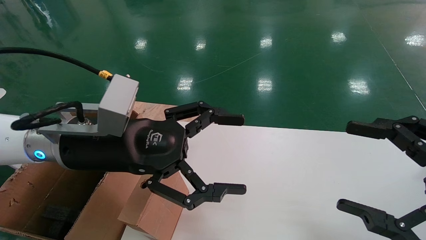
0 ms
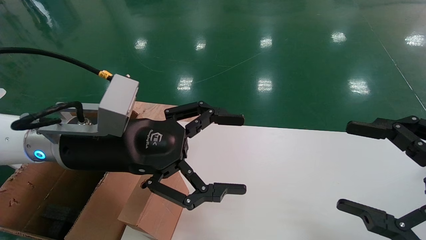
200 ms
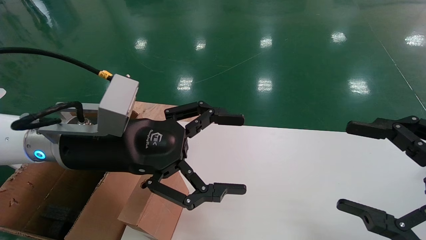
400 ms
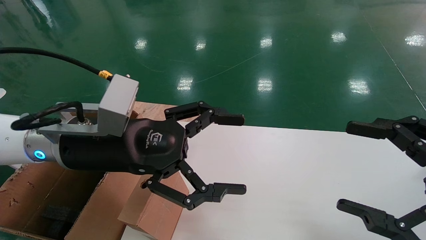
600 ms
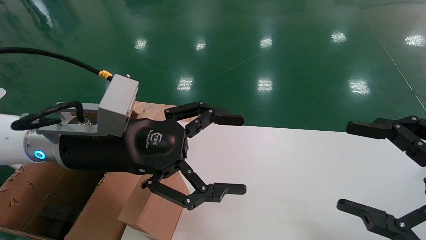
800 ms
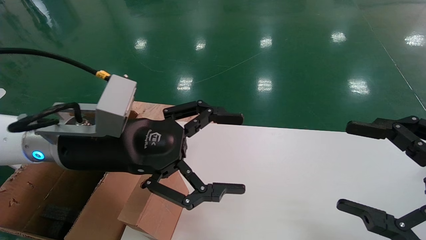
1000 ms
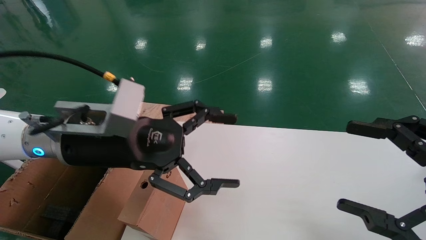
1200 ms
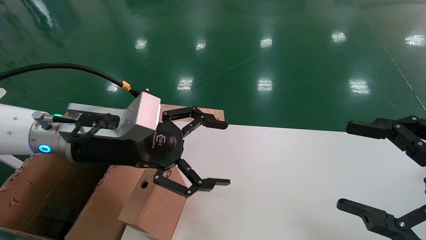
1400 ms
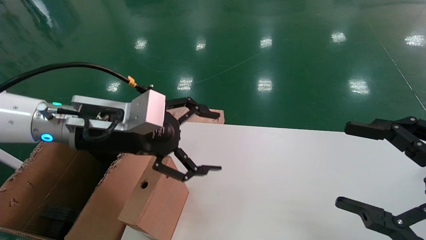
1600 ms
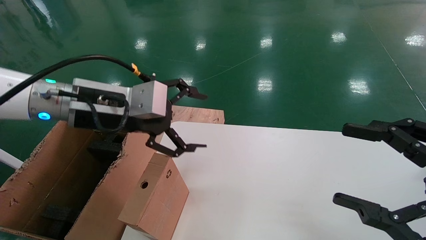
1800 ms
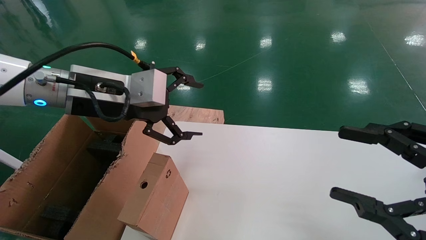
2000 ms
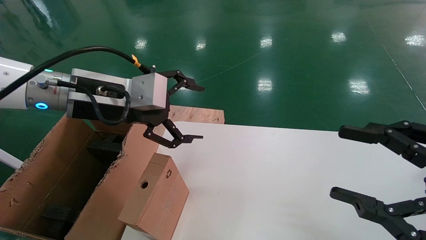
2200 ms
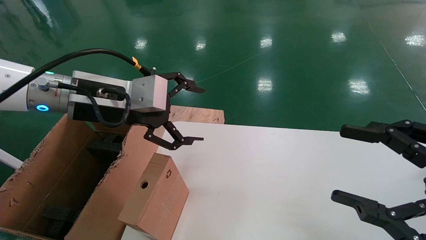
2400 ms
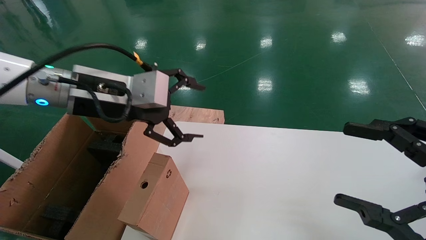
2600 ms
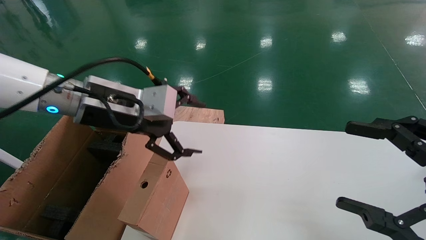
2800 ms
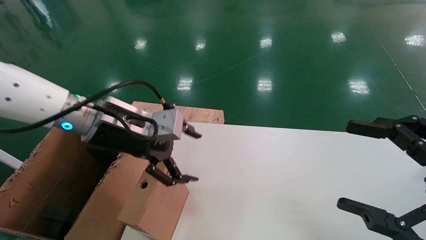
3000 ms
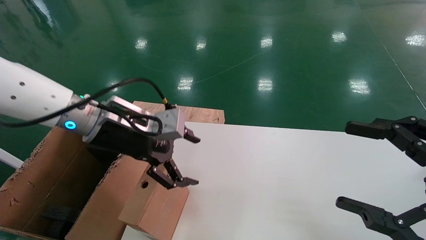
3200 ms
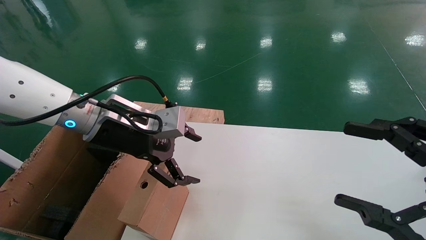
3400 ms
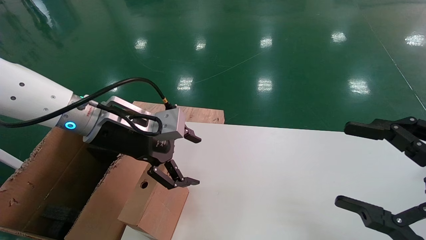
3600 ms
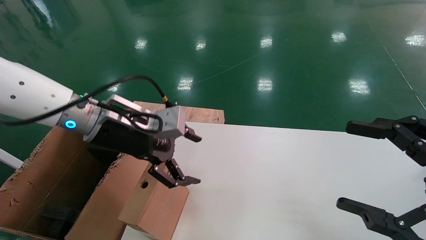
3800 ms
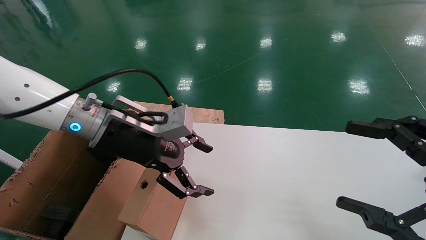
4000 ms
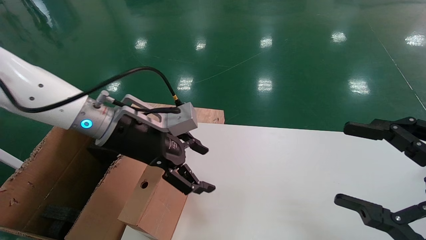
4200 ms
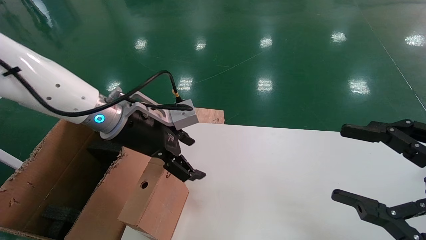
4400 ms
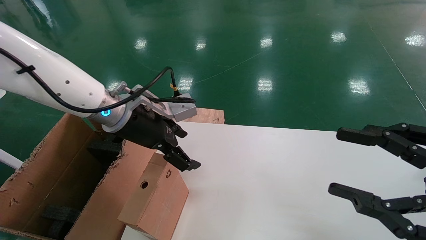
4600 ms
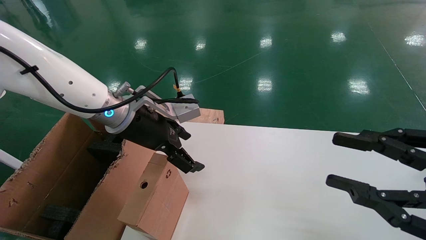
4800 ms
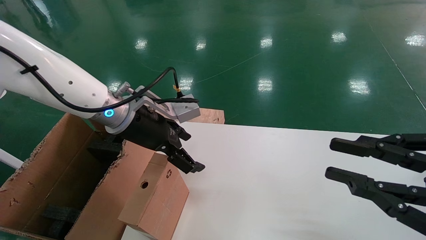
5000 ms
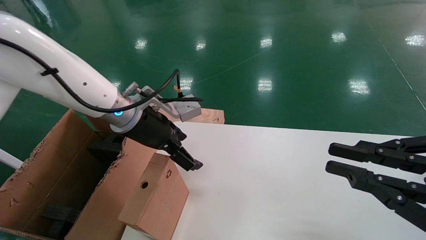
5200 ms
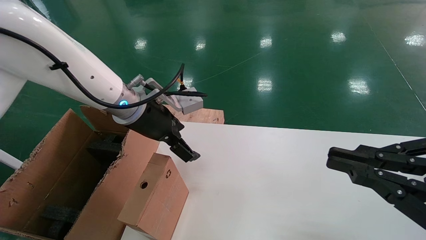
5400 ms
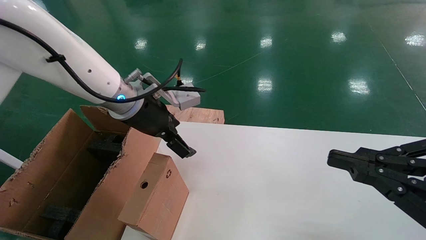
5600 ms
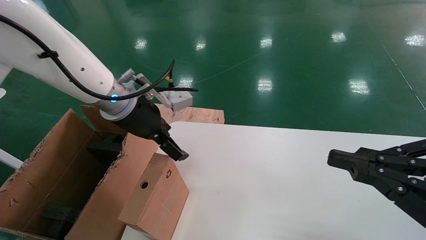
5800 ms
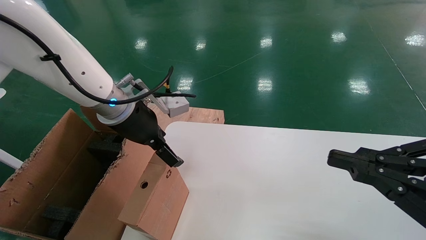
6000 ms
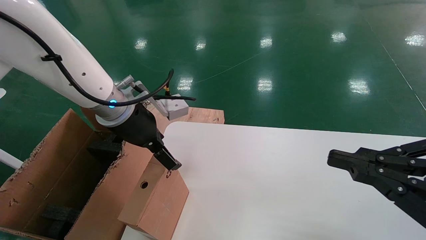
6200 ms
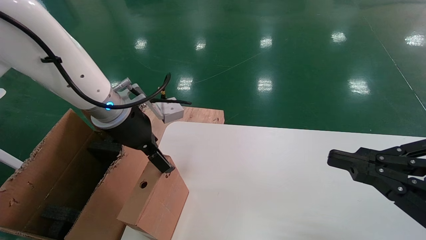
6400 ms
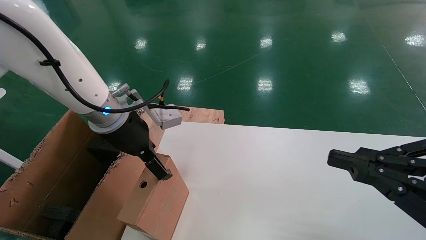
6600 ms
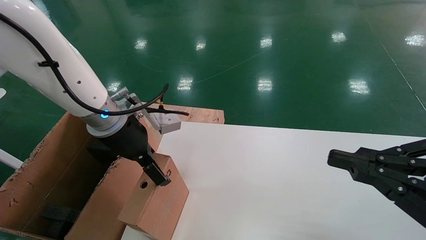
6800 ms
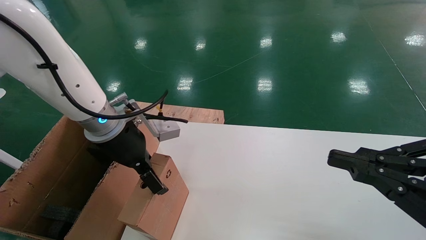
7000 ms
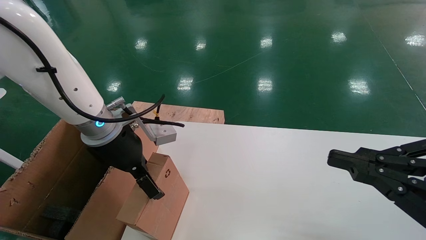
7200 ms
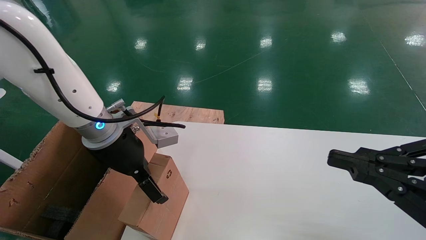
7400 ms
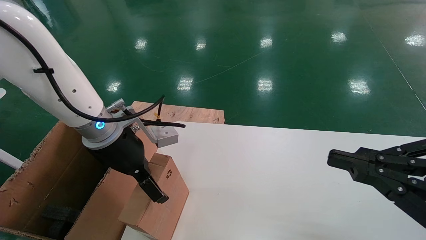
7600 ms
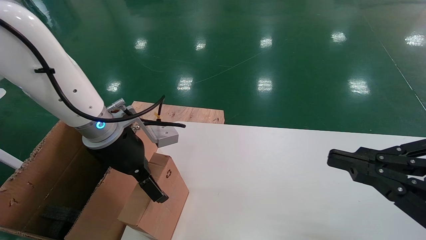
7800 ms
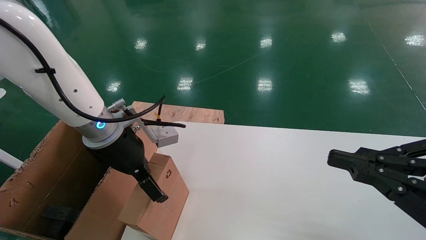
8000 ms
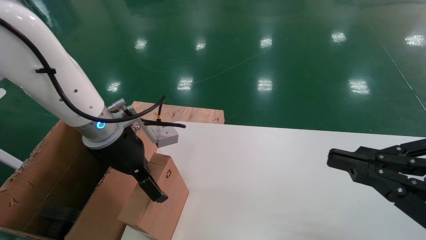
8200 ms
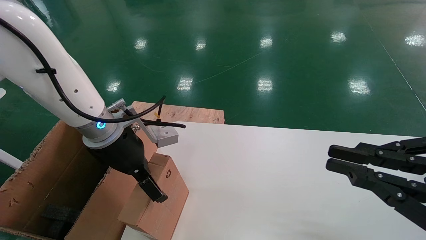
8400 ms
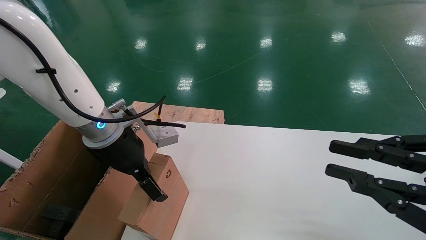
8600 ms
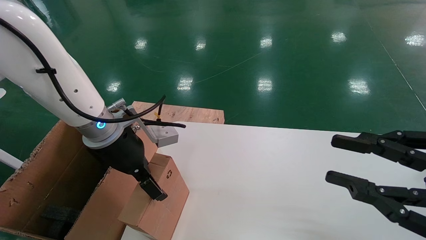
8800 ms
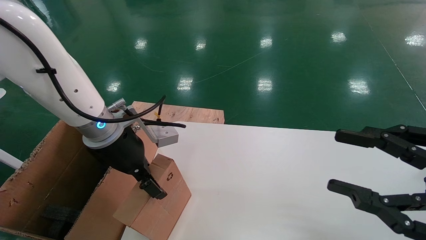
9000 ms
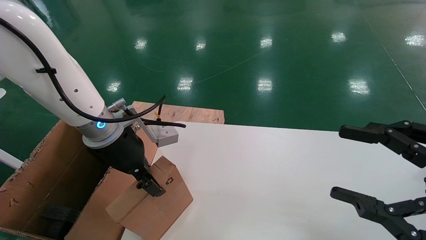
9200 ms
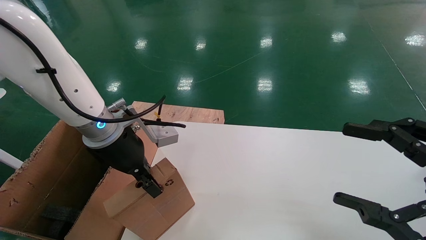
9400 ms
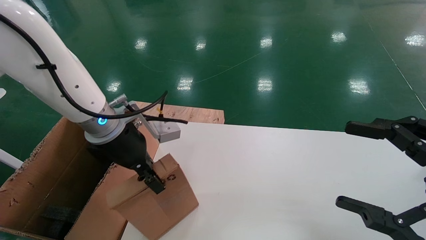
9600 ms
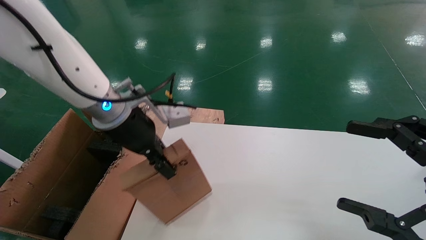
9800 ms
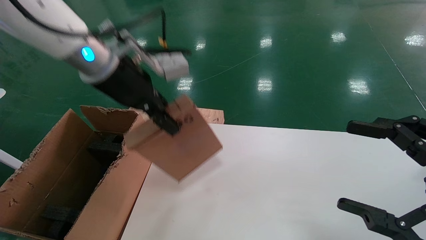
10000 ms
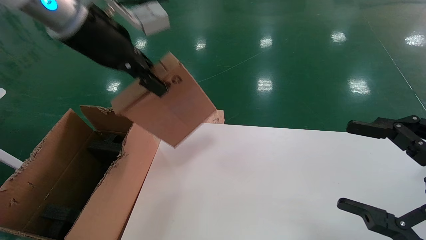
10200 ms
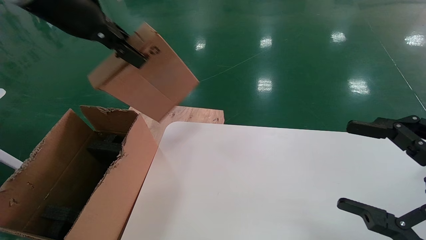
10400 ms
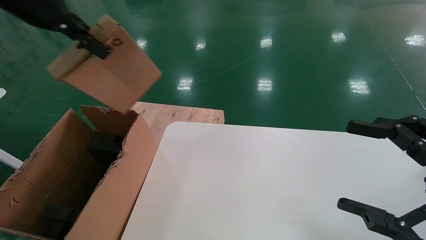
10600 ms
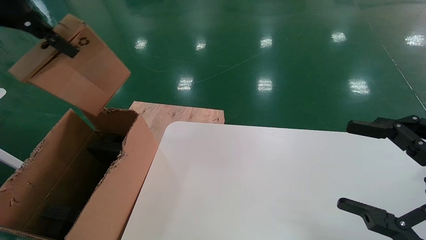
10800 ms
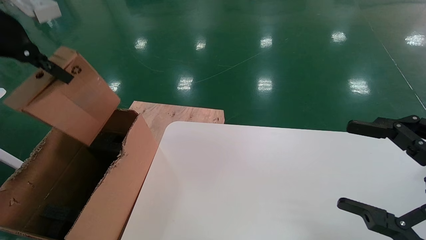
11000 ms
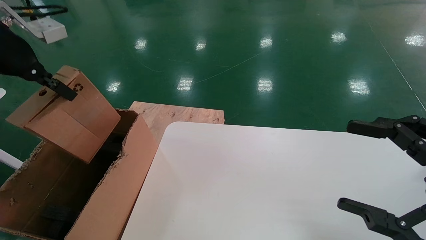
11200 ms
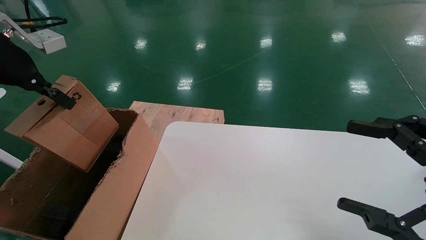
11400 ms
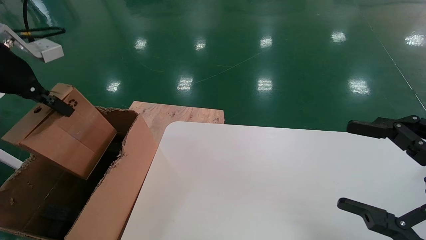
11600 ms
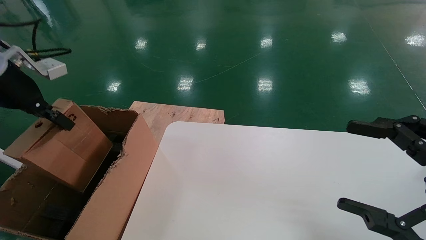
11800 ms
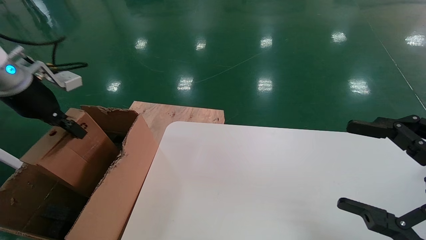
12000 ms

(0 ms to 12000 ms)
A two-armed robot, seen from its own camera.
Task of the whole recording: place the small box on the table into the large box on the left.
Step, 1400 ms - 9600 ms: Pick up the mouse and the power cord paper box.
4400 ms - 6000 ms: The right gripper closes.
6000 ms - 7600 ms: There are only small adjustments of the grippers.
7600 ms - 9000 ms: The right gripper opens up.
9000 ms - 10400 ms: The right gripper opens its fingers. The left gripper heads upward, covering about 20 cm, and closes its fingers.
10400 ms - 12000 ms: The left gripper is displaced to the left and downward by about 20 cm.

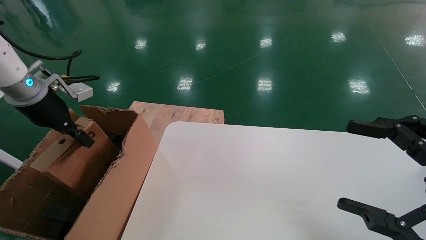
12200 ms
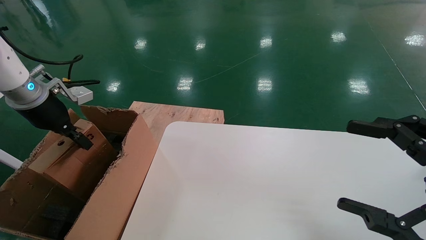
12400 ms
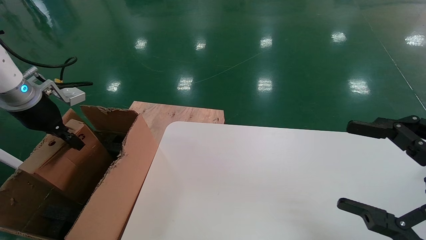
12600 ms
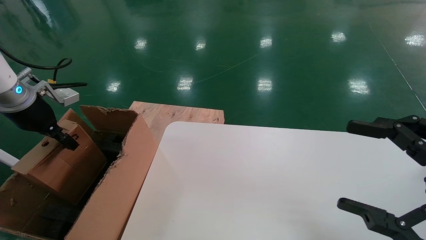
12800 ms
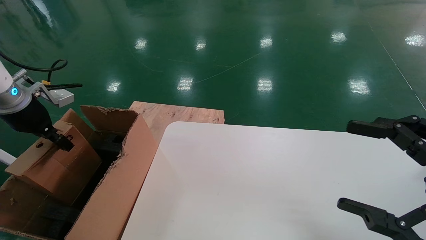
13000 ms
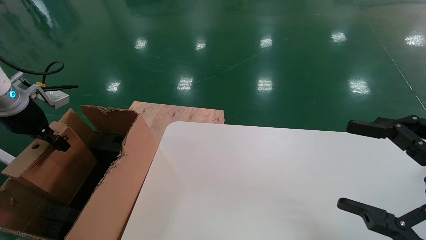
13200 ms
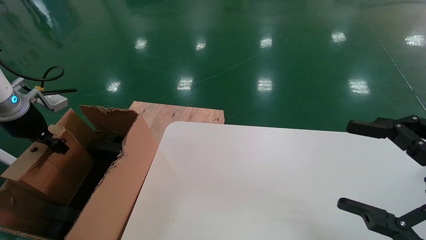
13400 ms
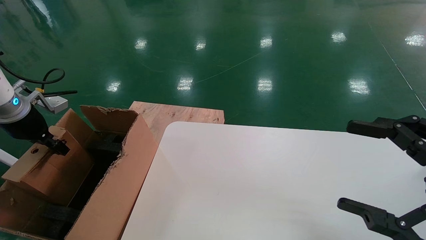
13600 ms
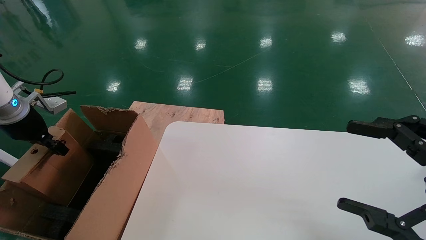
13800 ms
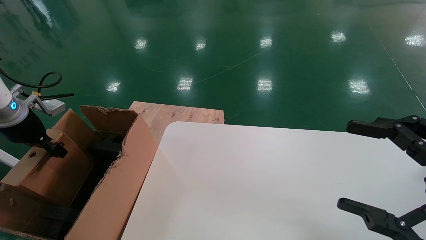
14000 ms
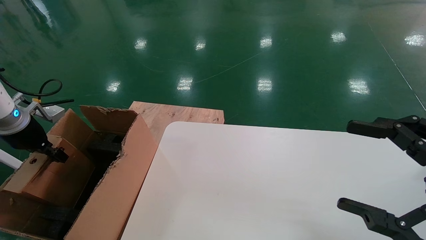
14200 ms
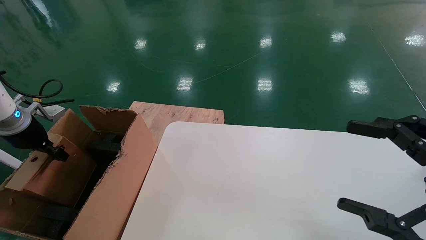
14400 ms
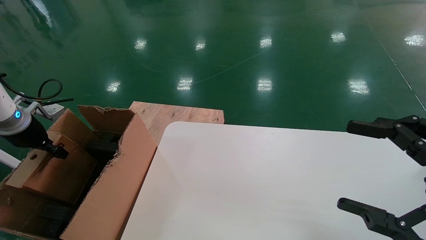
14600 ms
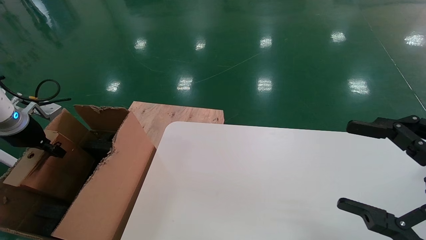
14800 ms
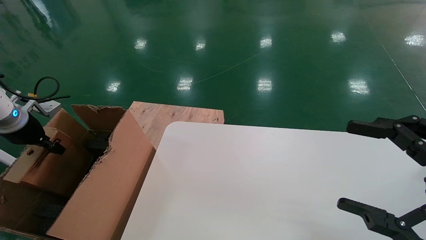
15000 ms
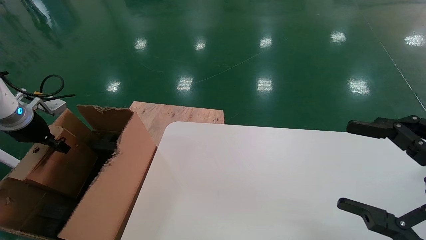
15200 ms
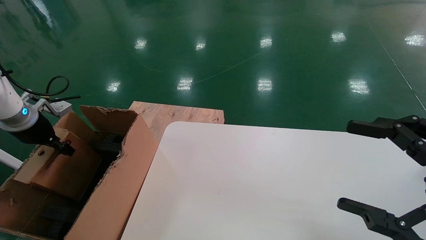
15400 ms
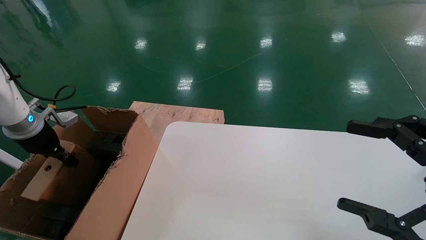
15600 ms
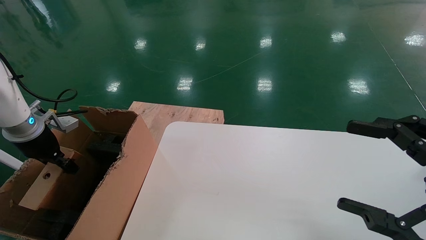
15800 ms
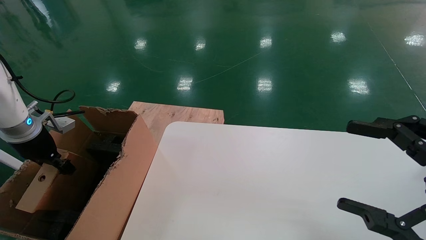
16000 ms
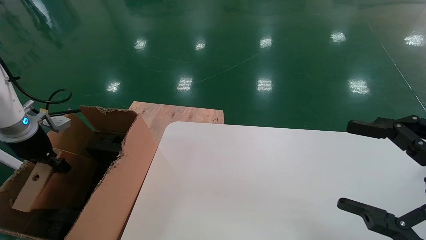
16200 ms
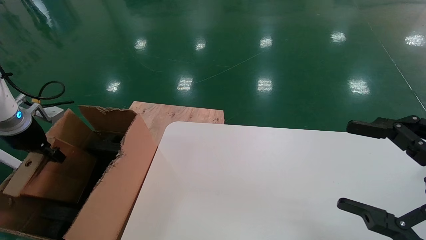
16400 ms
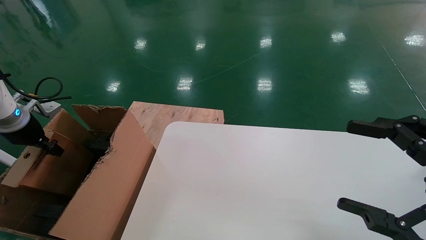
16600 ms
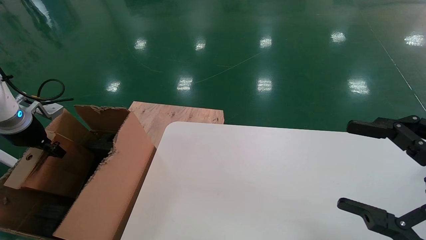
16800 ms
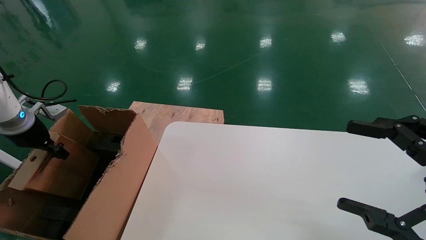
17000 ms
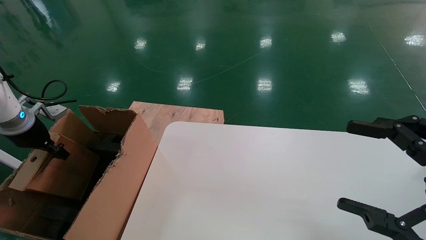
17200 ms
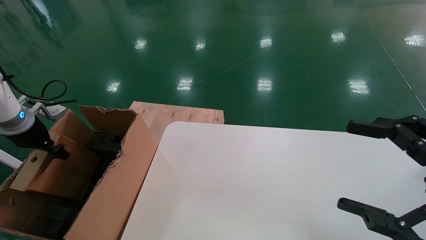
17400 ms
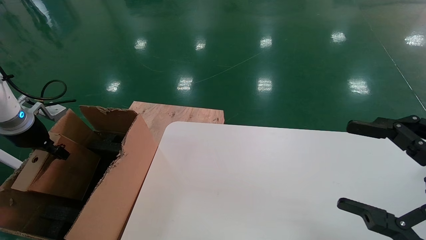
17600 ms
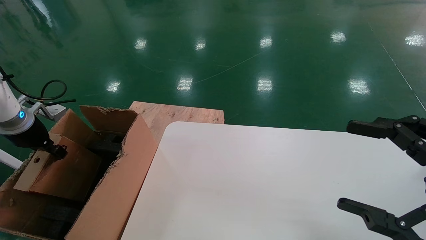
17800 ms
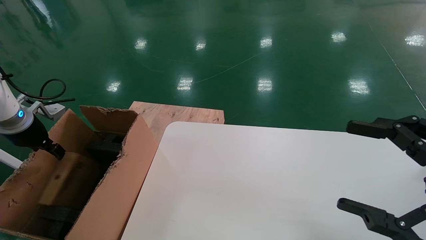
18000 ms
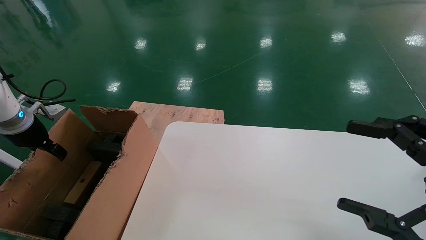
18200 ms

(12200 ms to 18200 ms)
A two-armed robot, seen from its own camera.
Task of the whole recording: place the small box on the table into the large box on the left.
12200 ms - 13800 ms: The left gripper heads to the left and downward, covering roughly 10 cm.
13800 ms - 16600 ms: The grippers stay close to where they were, moving slightly.
16600 ms - 18200 ms: The left gripper opens.
